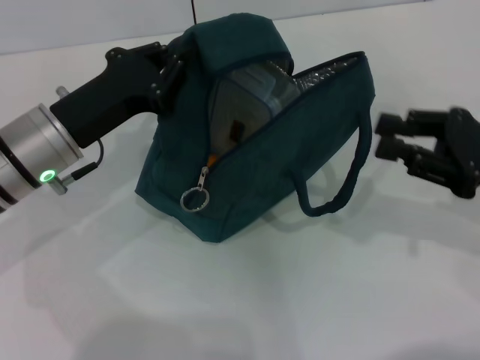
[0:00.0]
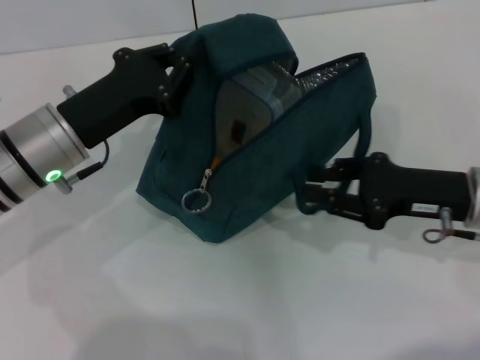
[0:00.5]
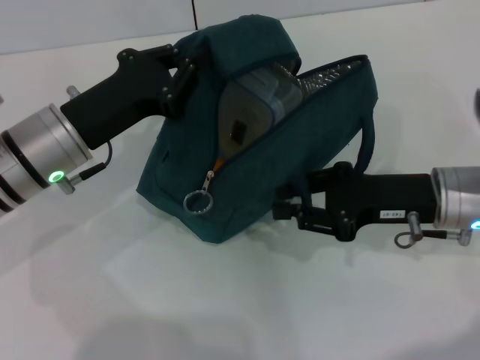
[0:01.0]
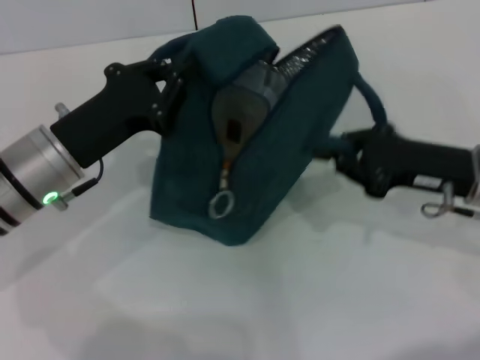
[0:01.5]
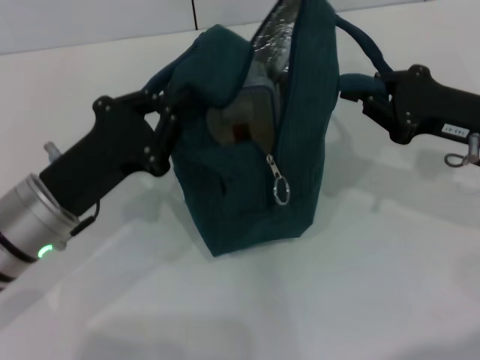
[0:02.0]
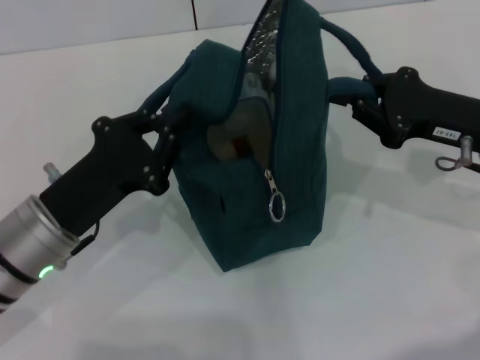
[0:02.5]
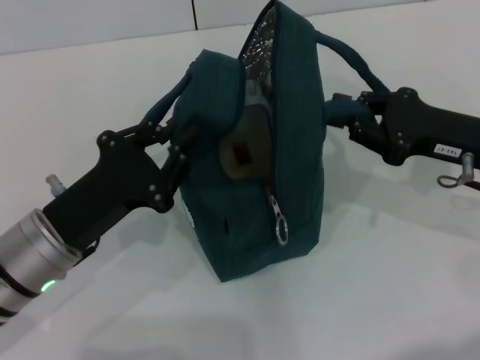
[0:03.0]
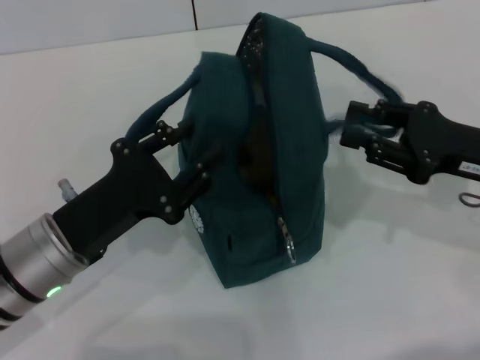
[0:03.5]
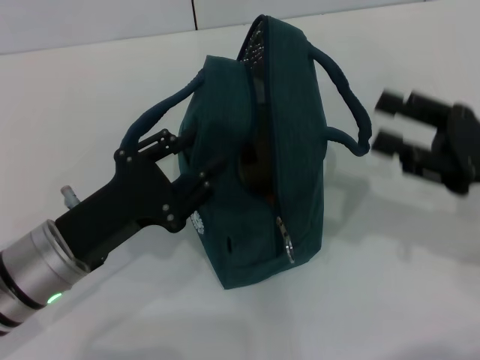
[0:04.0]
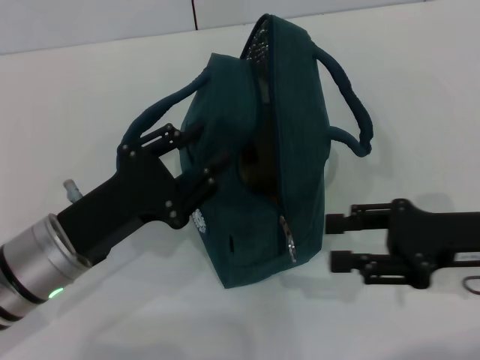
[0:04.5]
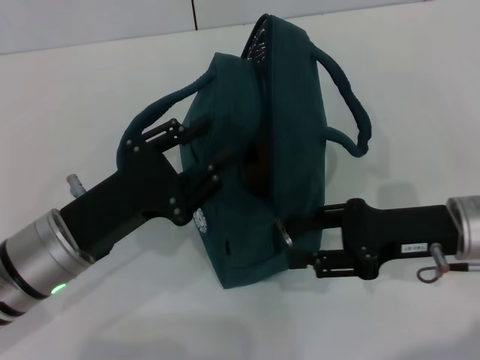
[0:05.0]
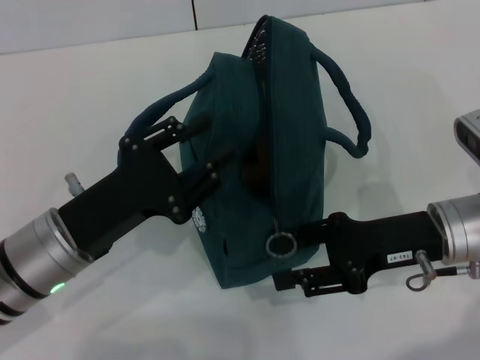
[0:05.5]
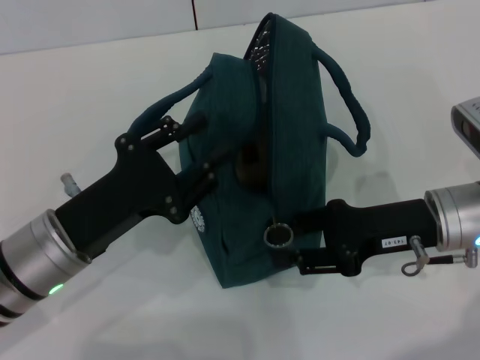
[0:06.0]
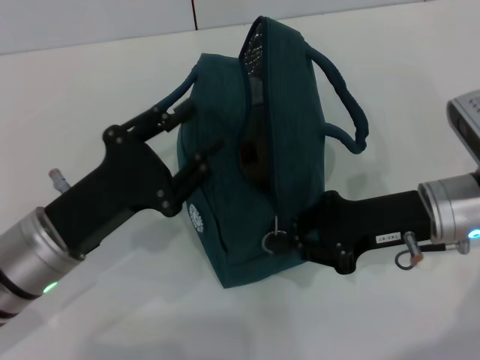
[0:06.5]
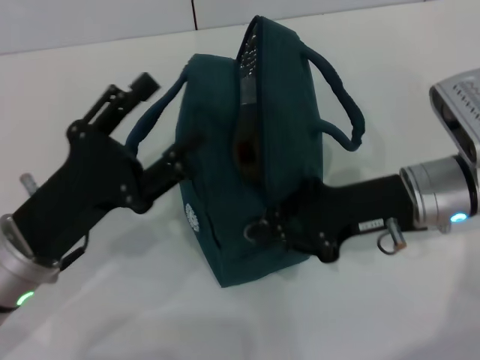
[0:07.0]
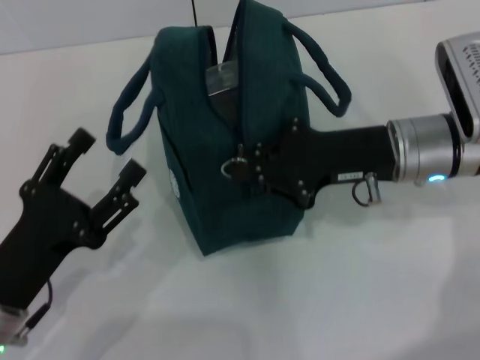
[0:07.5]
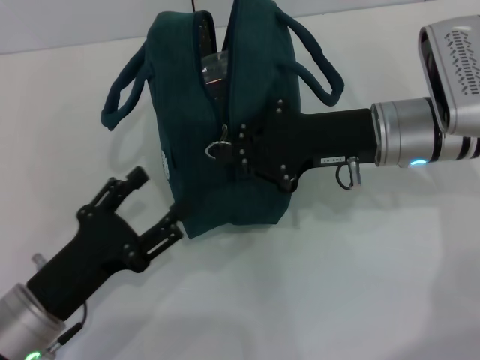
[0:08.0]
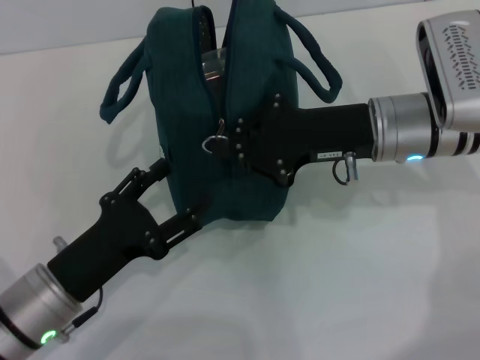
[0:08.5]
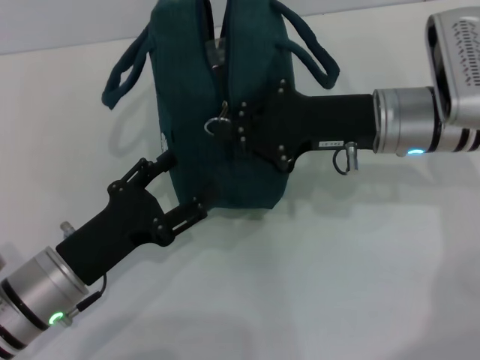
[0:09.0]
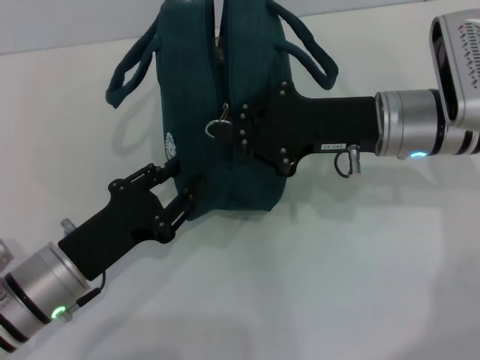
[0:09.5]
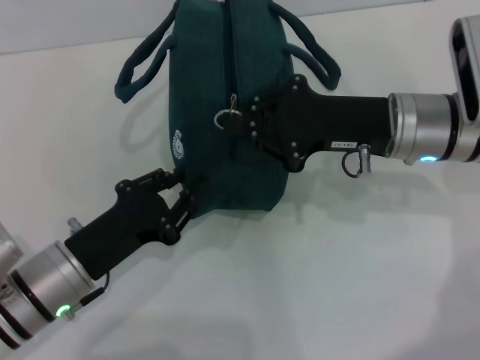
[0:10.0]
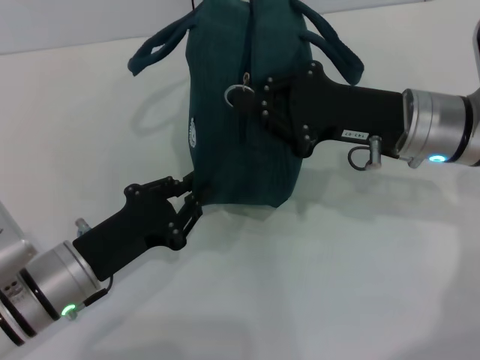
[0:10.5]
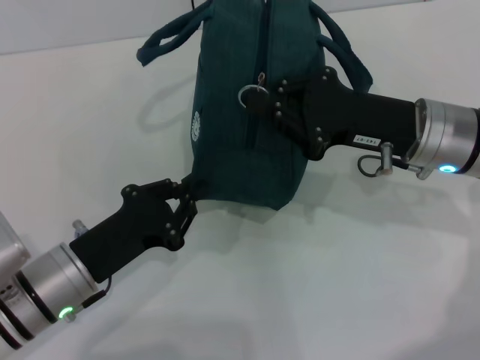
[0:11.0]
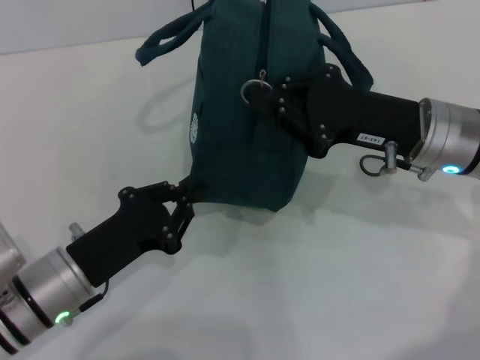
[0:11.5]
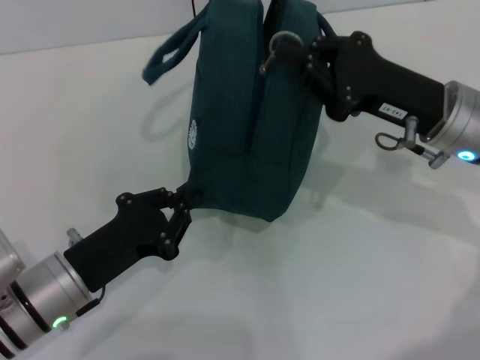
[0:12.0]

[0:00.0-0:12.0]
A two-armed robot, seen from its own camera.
Step, 0:00.0 to 0:03.5: Hold the lunch bag with your right hand.
0:00.0 to 0:02.0: The left gripper shifts about 5 cm backward. Meanwhile the right gripper travels to the left and back again, roughly 10 cm each way, and closes its fingers.
0:02.0 to 0:04.0: The left gripper opens. The right gripper is displaced backward by some 5 cm, and opens.
0:04.0 to 0:06.0: The right gripper is displaced to the left by about 10 cm.
0:06.0 to 0:08.0: The left gripper moves backward, about 5 cm, and opens its fingers, while the right gripper goes some 5 cm forward, and closes.
0:08.0 to 0:10.0: The left gripper closes its fingers.

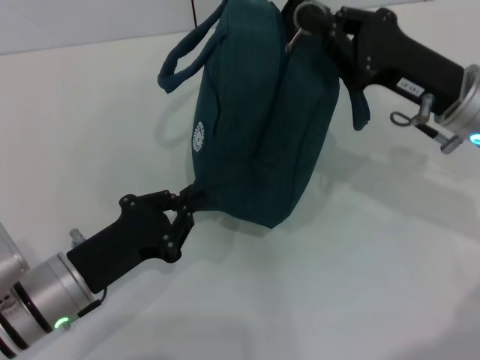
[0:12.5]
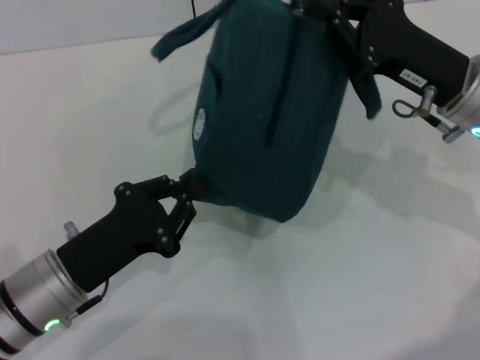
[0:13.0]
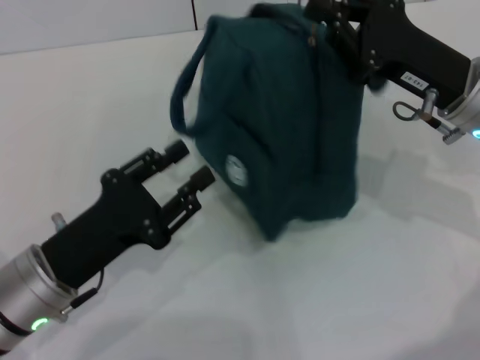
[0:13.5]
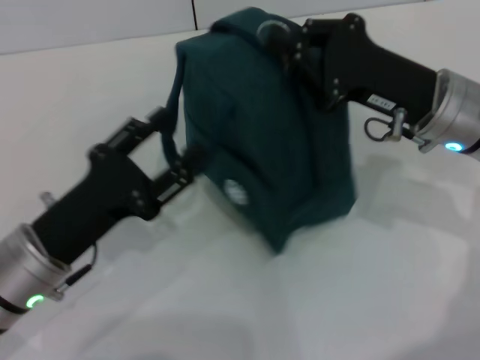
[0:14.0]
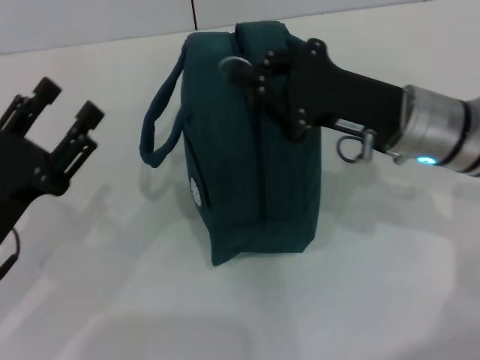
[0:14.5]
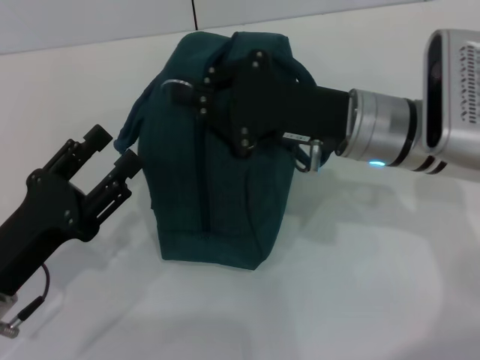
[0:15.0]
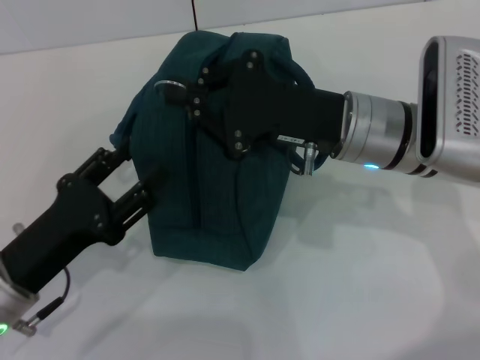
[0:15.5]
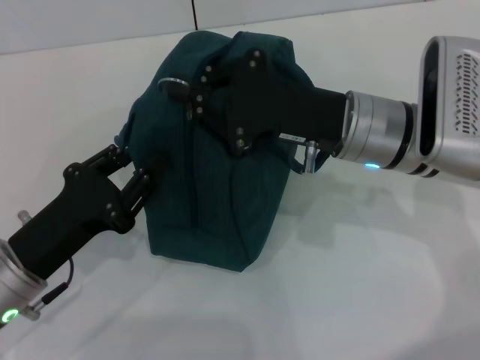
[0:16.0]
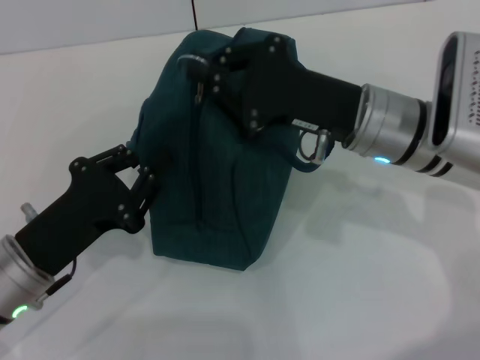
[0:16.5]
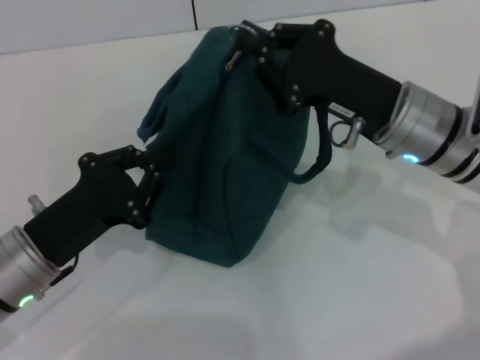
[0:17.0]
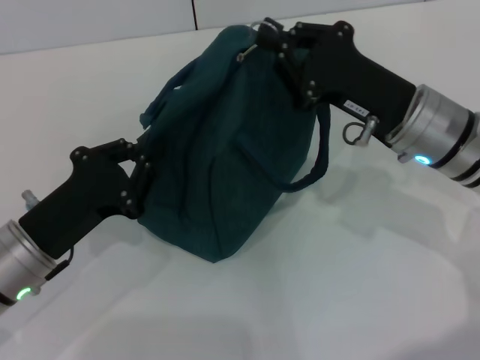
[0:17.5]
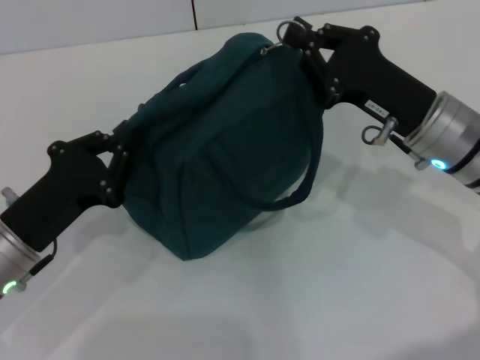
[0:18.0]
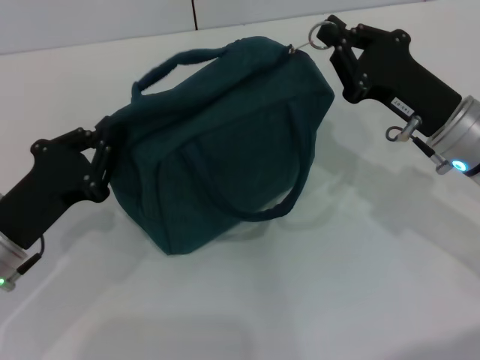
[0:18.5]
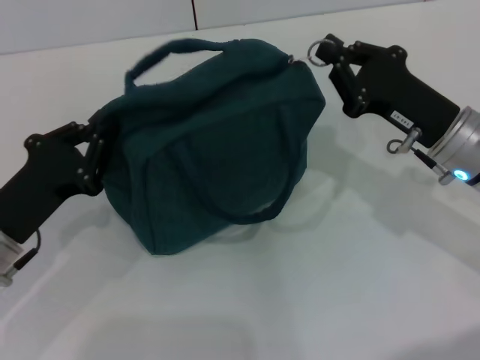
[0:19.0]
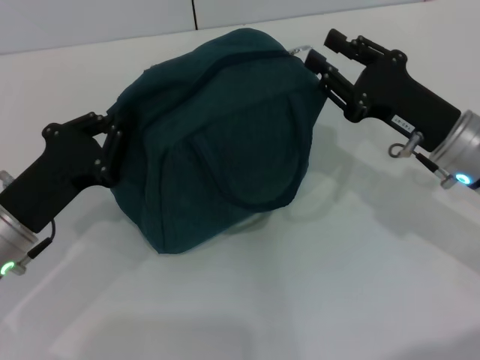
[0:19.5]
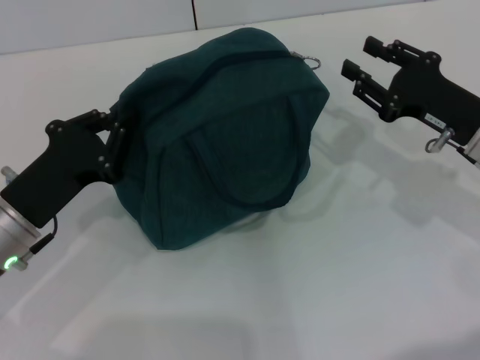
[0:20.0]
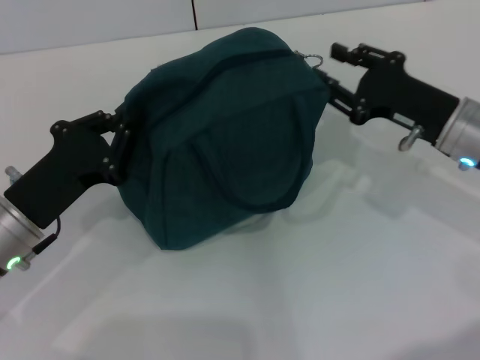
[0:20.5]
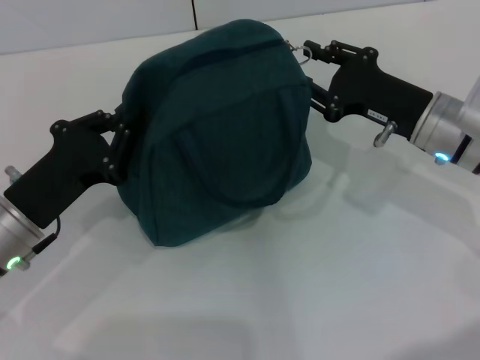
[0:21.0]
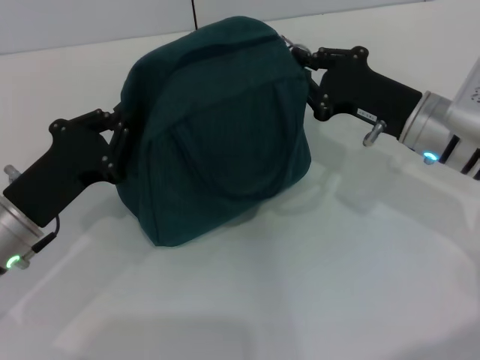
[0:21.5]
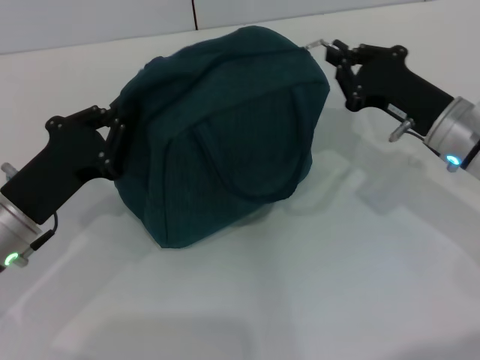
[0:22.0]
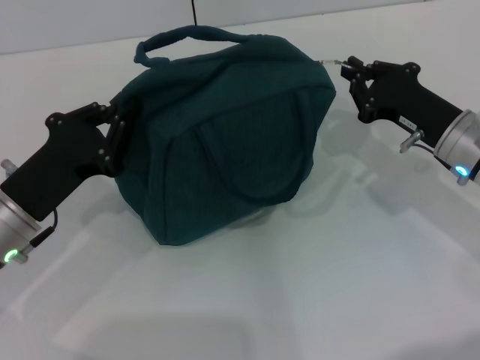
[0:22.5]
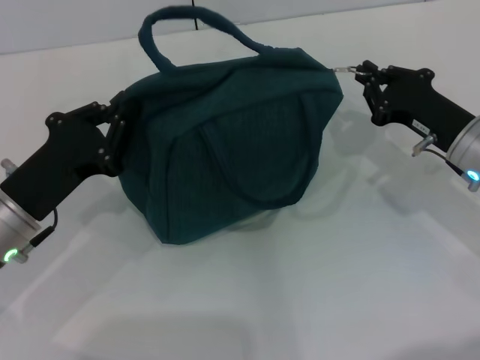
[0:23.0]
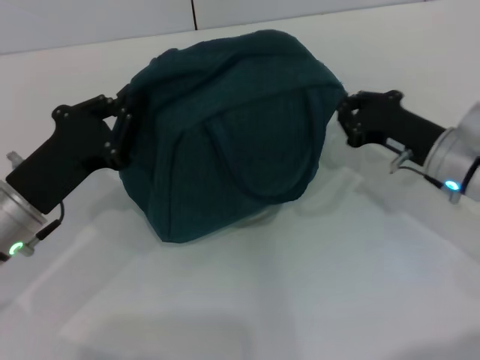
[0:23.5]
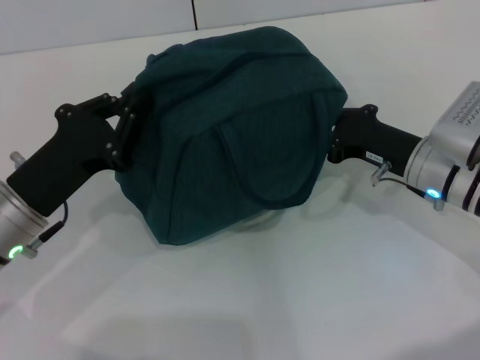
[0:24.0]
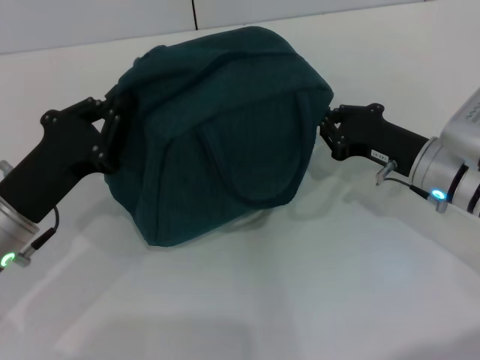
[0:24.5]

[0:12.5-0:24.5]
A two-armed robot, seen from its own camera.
0:12.5 to 0:14.5: The grippers both shift to the left by approximately 5 cm. The left gripper opens its fingers.
0:14.5 to 0:16.5: The left gripper closes its fingers.
0:16.5 to 0:18.5: The right gripper goes about 10 cm to the right.
0:18.5 to 0:20.5: The right gripper opens.
0:20.5 to 0:22.5: The right gripper closes up.
0:22.5 to 0:24.5: There are only small adjustments of the grippers.

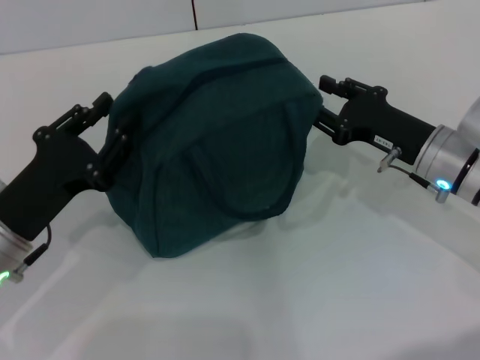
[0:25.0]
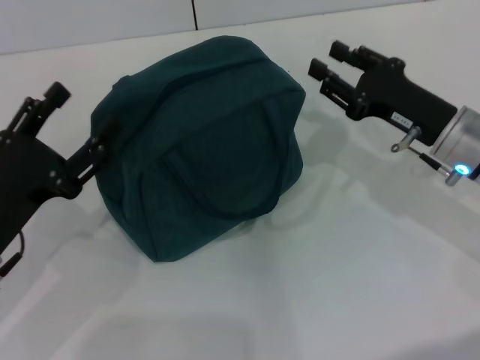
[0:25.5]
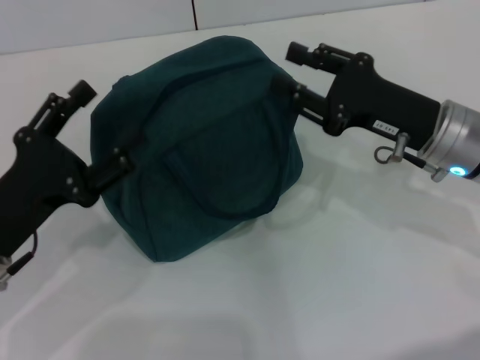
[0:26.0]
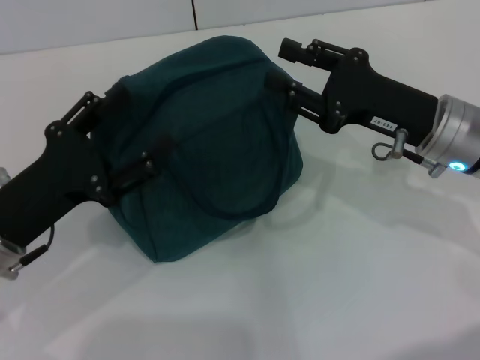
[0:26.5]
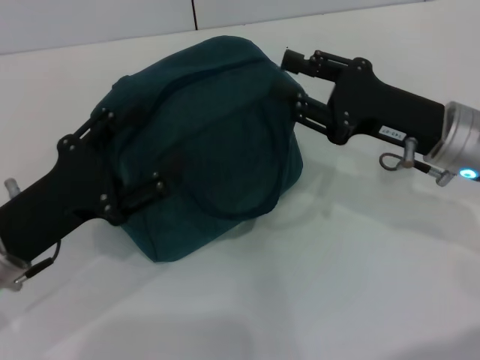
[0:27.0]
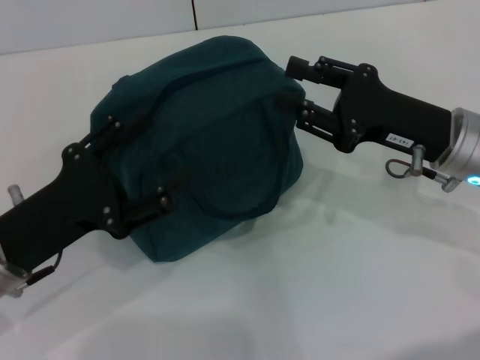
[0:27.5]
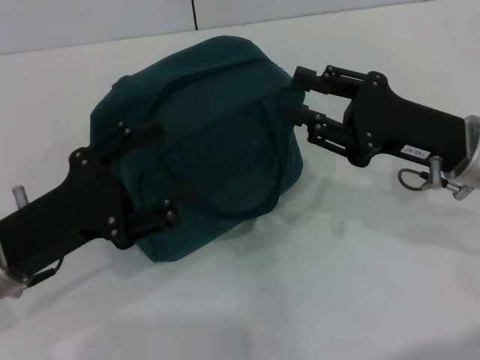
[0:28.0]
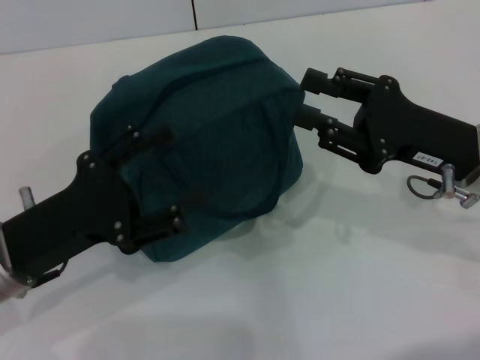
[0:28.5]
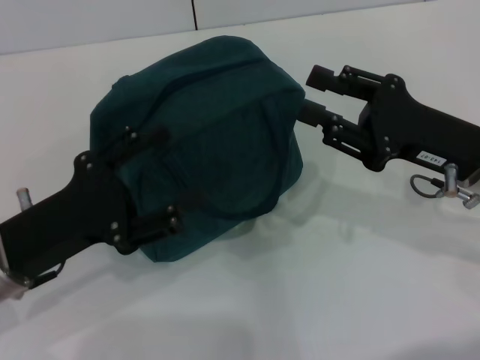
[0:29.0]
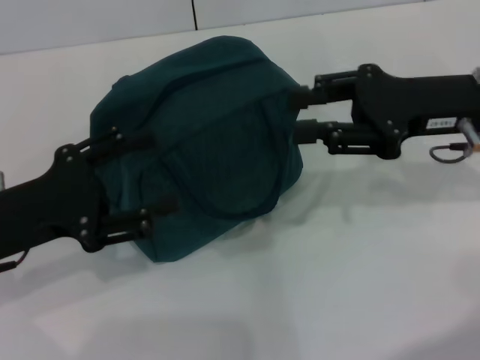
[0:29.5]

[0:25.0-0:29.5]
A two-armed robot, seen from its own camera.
0:25.0 to 0:27.0: The left gripper opens its fingers. Meanwhile the right gripper heads upward, covering approximately 5 cm.
0:27.0 to 0:29.5: The right gripper goes approximately 5 cm upward.
